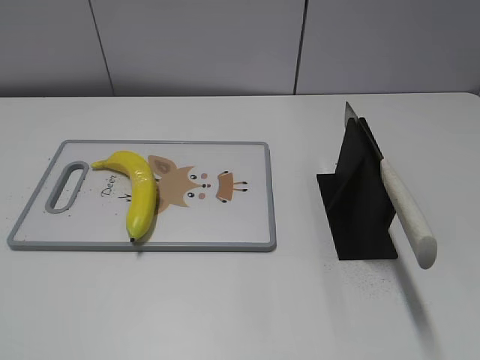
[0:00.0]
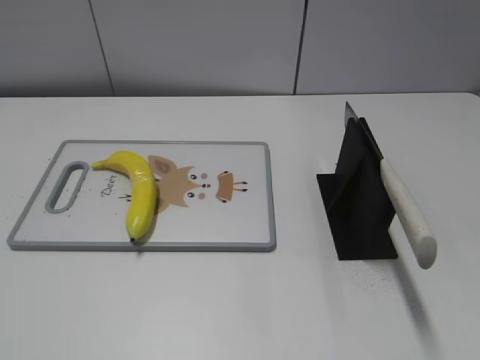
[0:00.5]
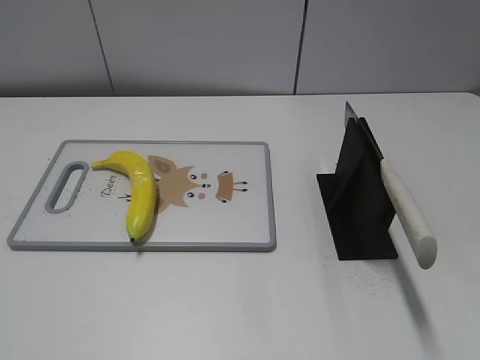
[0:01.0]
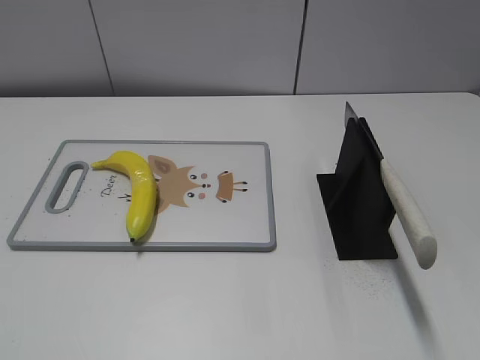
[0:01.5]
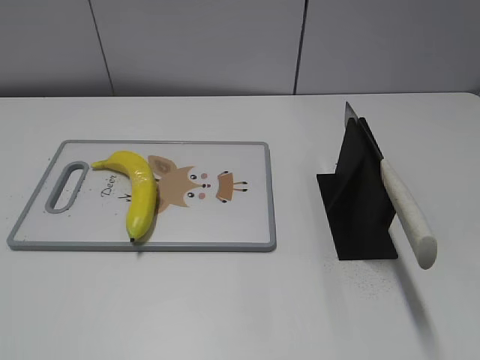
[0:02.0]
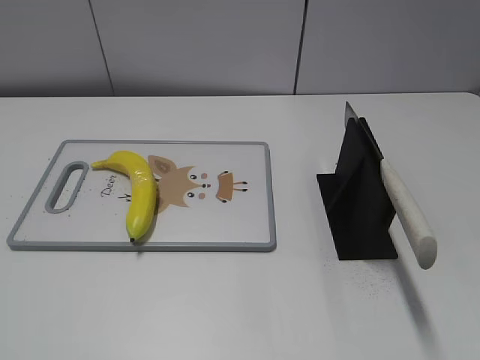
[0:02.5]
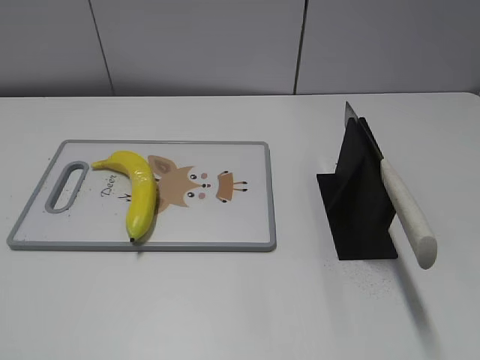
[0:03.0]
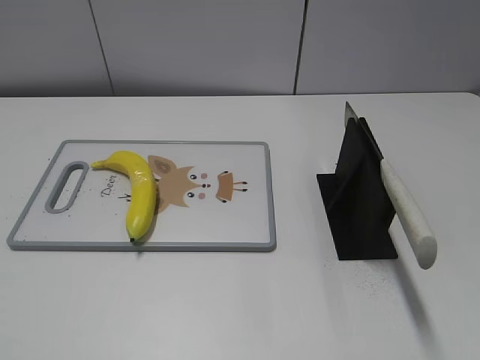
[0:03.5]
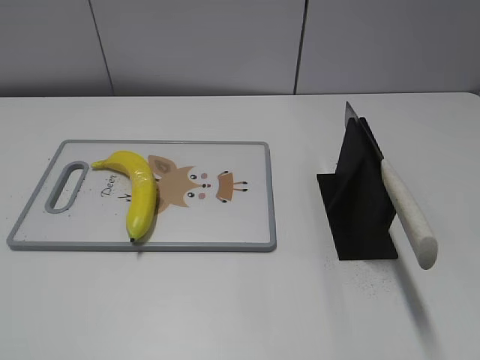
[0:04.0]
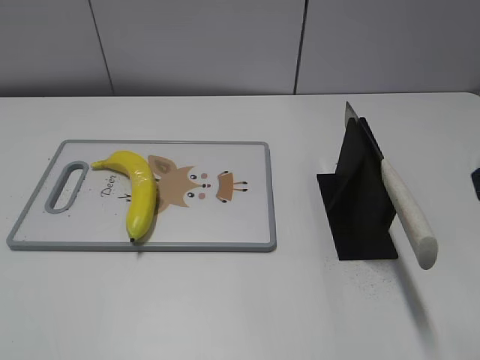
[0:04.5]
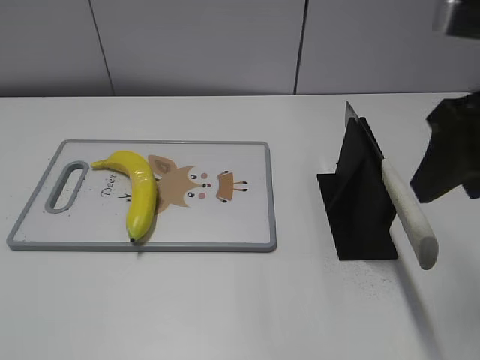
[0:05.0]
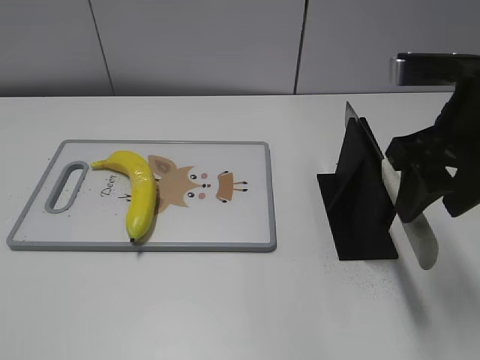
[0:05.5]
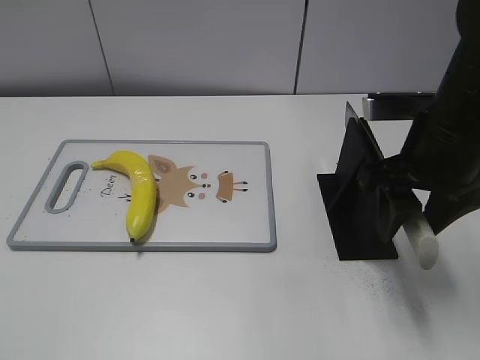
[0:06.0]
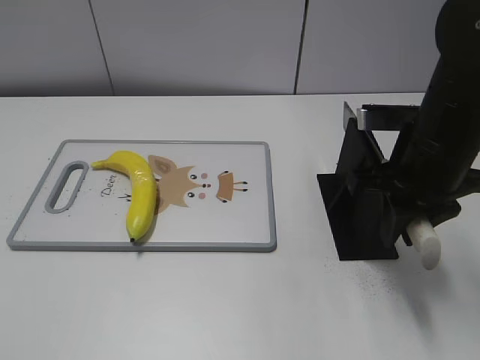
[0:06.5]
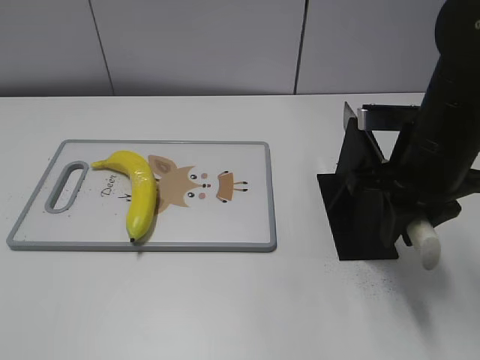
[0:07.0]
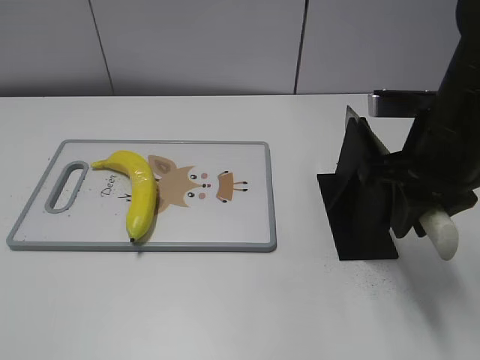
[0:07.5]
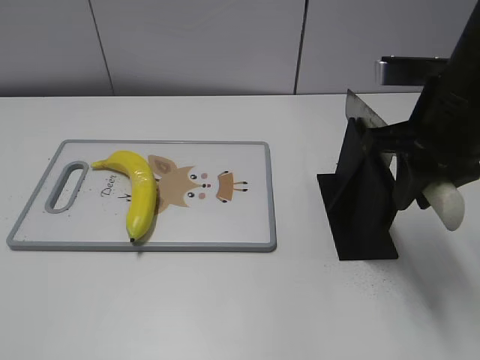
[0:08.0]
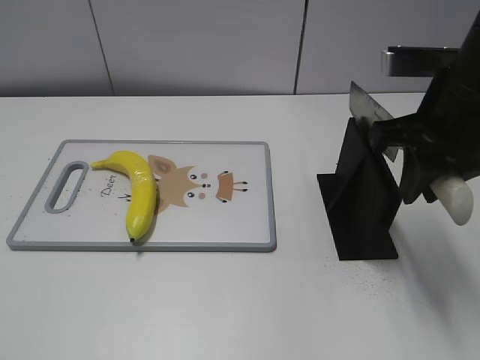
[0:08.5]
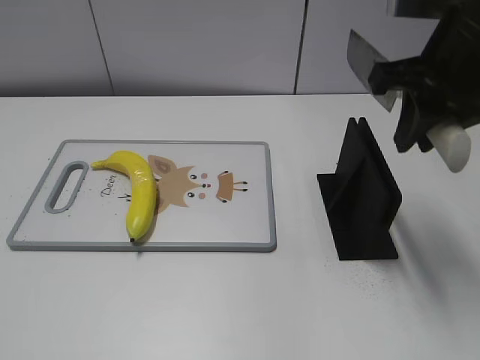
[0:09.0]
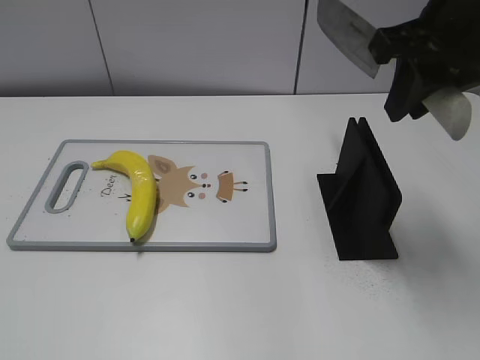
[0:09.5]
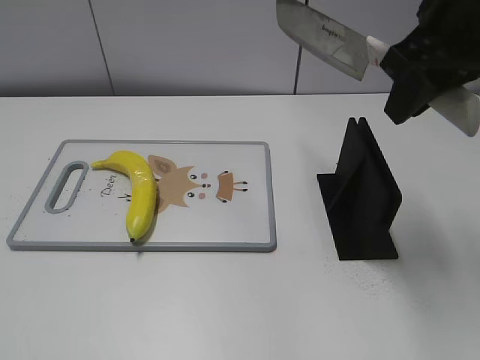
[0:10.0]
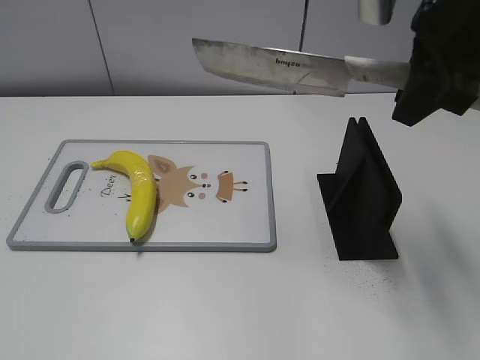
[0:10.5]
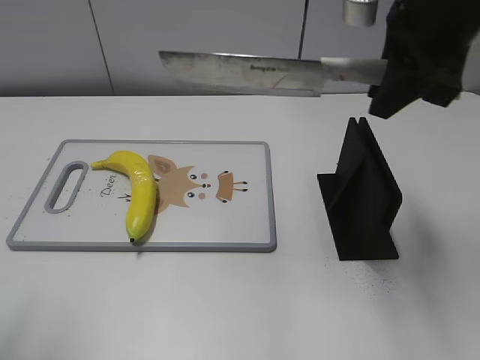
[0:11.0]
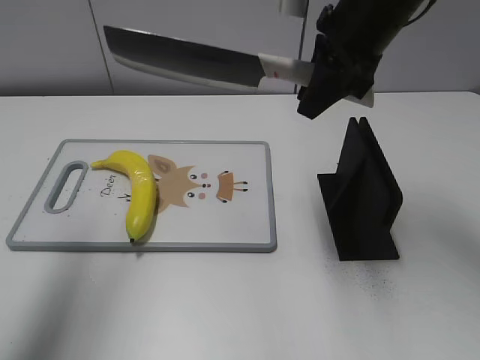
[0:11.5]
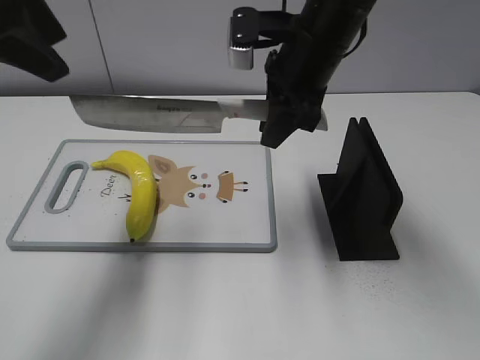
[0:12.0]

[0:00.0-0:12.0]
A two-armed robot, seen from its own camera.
Task of the whole recording: cut plastic banana.
Step, 0:00.0 to 0:08.0: Grab the knife handle with your right hand.
0:04.0 to 0:06.0: The right gripper moves forward, downward and to the left, approximately 25 cm.
0:06.0 to 0:08.0: The right gripper closes.
0:08.0 to 0:10.0: The right gripper goes roughly 10 cm upward.
0:10.0 to 0:12.0: The right gripper shifts about 15 cm to the left, forward and downward. The left gripper is displaced forward by some 30 cm.

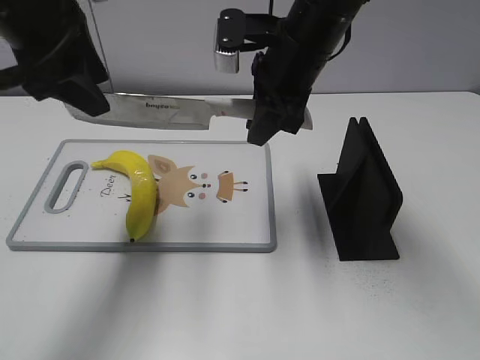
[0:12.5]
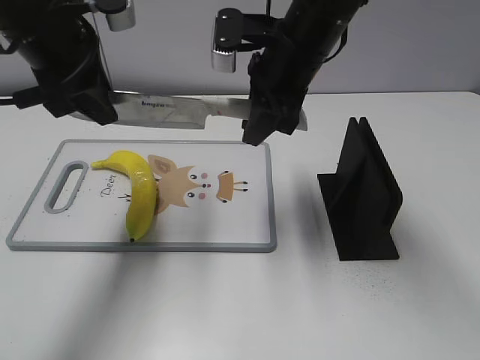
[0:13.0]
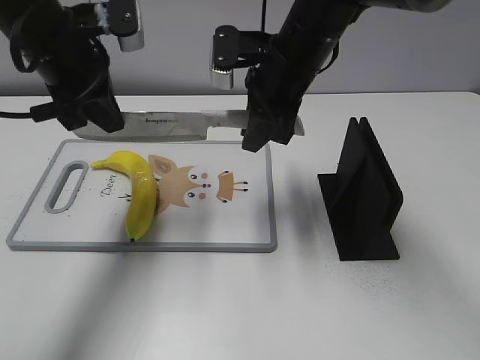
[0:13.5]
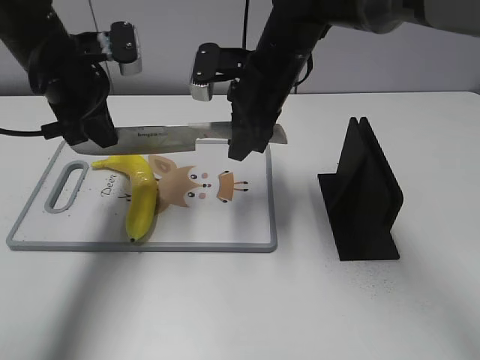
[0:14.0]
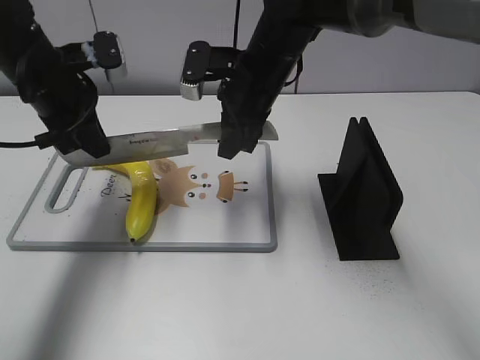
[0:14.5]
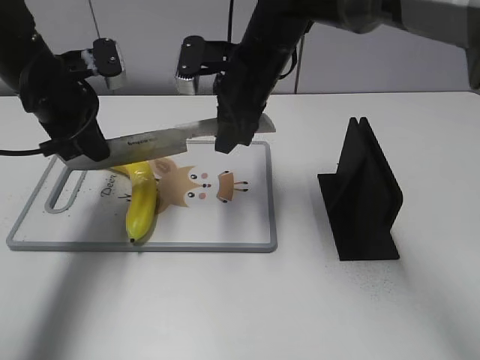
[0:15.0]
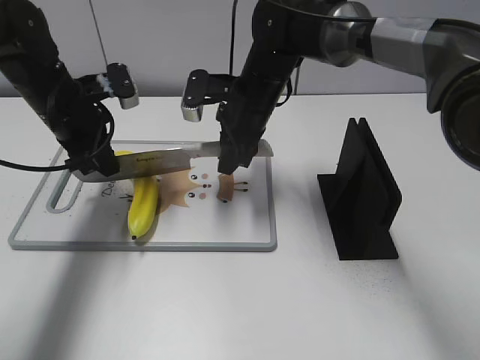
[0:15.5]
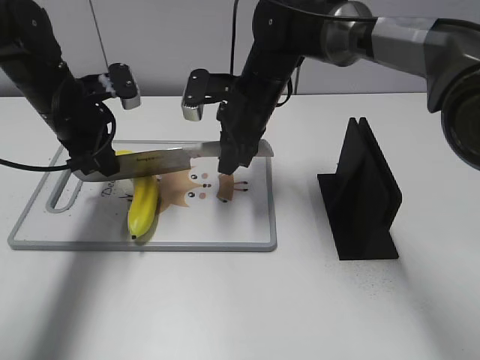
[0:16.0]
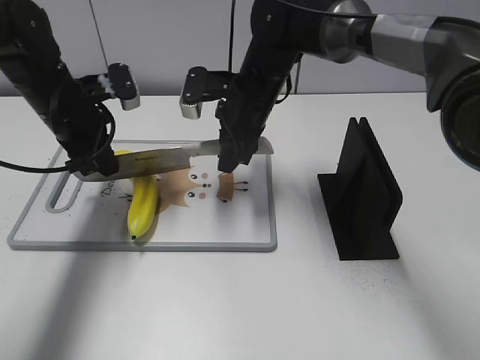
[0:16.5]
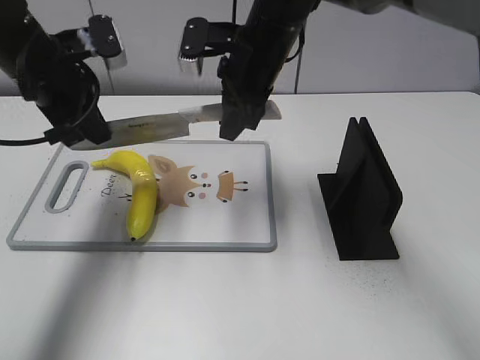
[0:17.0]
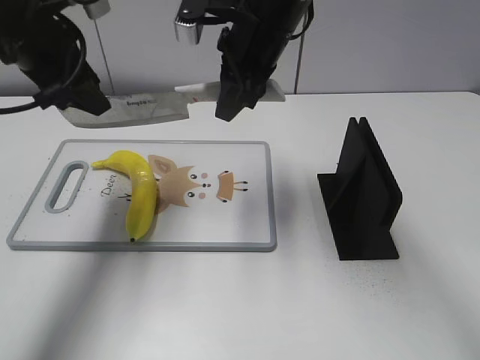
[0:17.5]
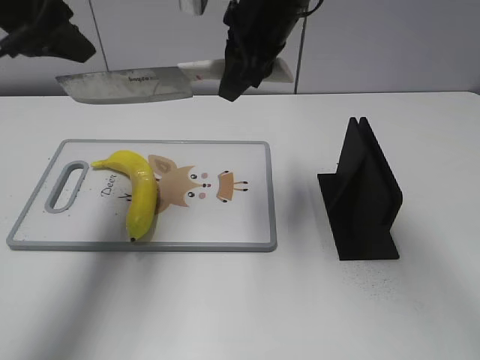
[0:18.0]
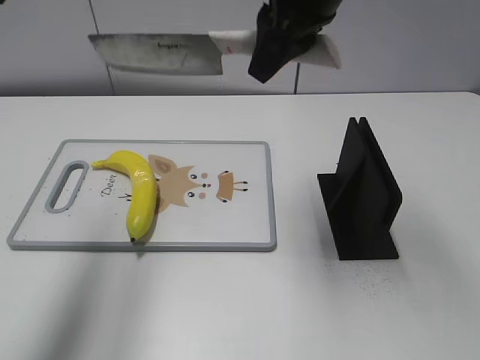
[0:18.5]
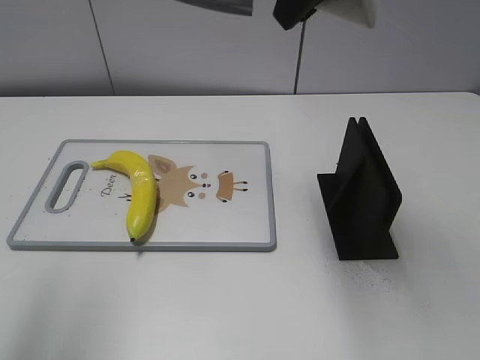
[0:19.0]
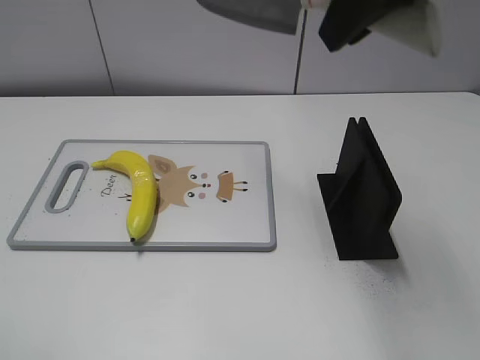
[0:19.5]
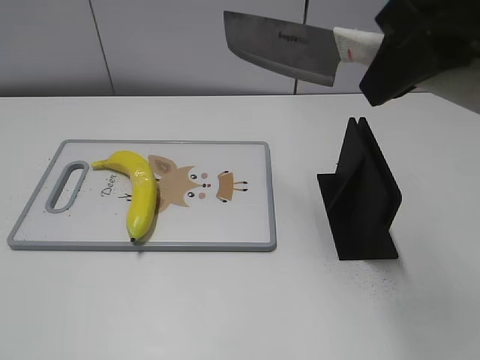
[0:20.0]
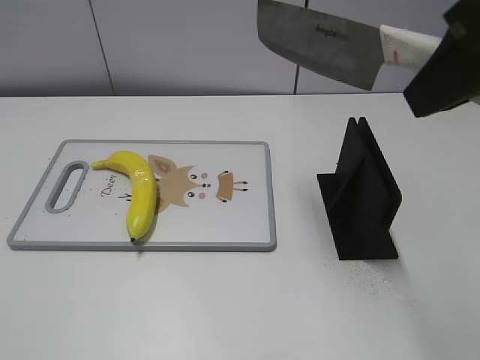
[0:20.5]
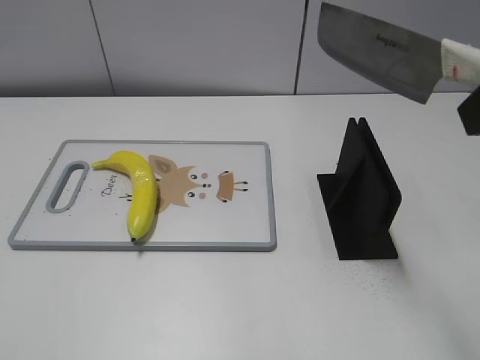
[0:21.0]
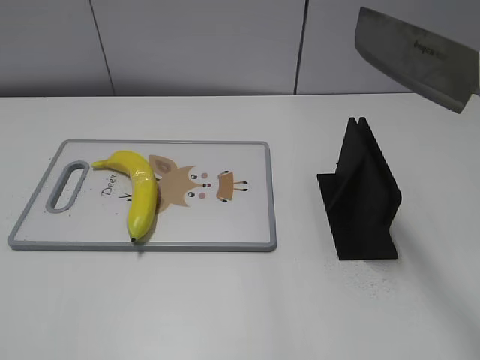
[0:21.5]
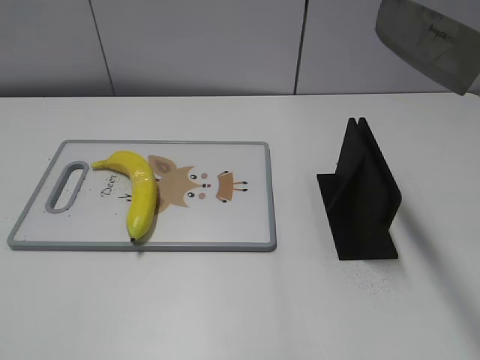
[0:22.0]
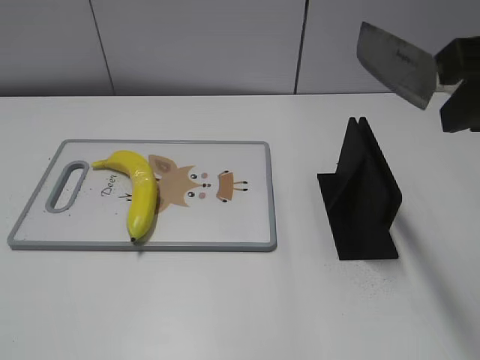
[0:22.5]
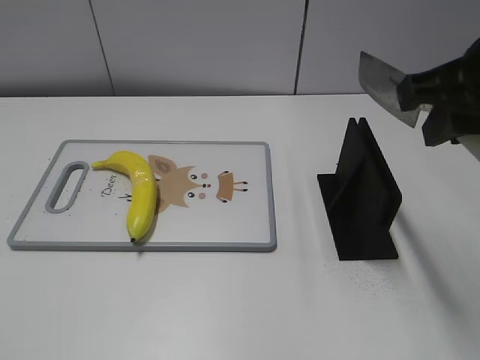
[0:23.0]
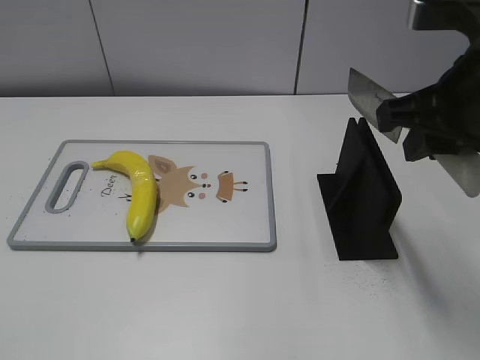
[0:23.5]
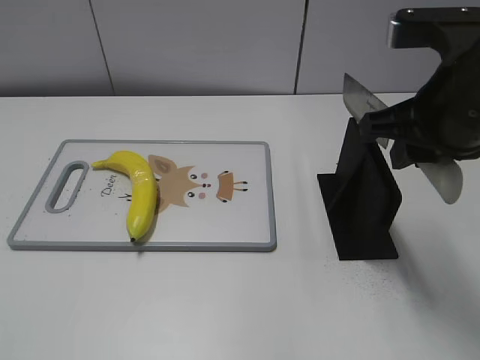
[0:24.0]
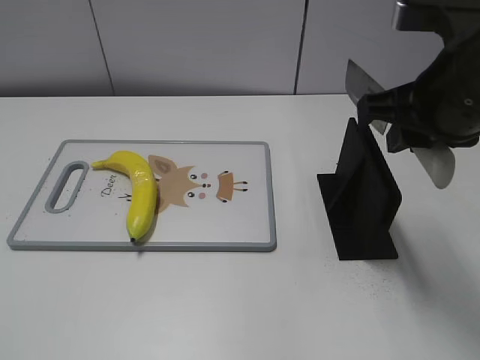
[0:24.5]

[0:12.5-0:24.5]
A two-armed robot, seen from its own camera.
Task of the whole recording: cut plastic banana.
Step, 0:12.5 to 0:17.0: Lift the knife with your right hand.
Step, 0:17.5 to 0:19.5: Cut the banana with your right hand.
Step, 0:20.0 to 0:21.0: Lift the knife with your right hand.
0:12.5 to 0:14.5: The right gripper moves some 5 cm, while the left gripper heads downward and forward, covering roughly 10 cm, and closes up.
0:14.5 to 0:16.5: The left gripper ends up about 5 cm from where it was.
0:16.5 to 0:18.5: The grippers both shift upward and backward by approximately 25 cm. The left gripper opens up.
0:18.5 to 0:20.5: The right gripper travels backward and to the right by some 20 cm. The left gripper goes about 25 cm backward and downward.
0:22.5 to 0:24.5: The right gripper travels downward and forward by about 10 cm.

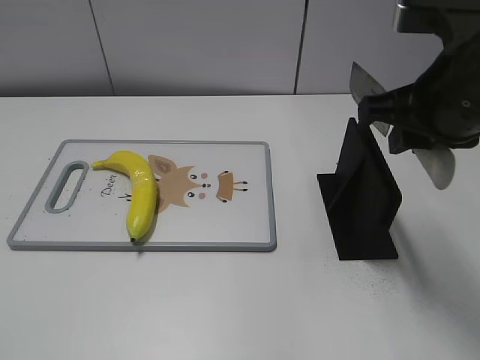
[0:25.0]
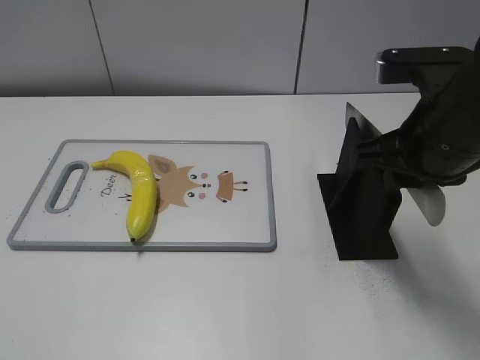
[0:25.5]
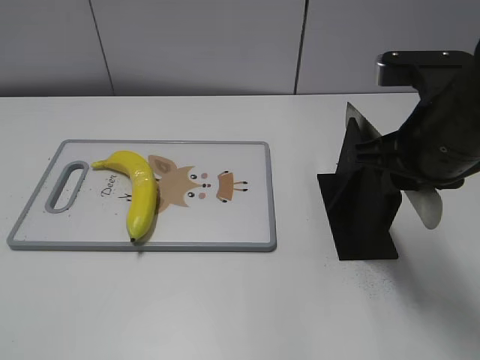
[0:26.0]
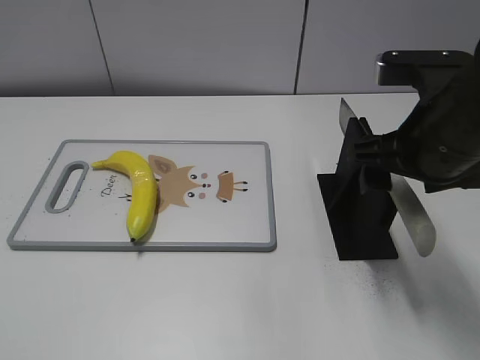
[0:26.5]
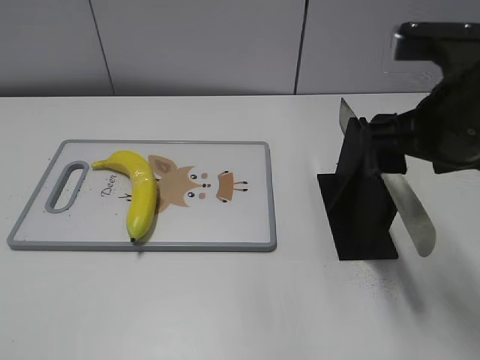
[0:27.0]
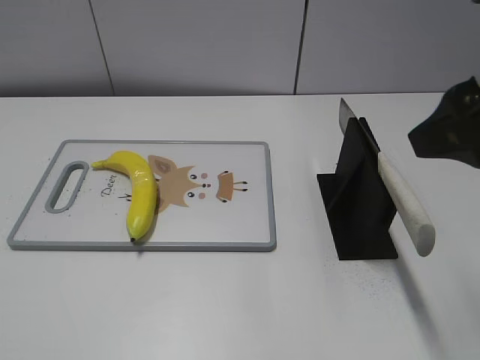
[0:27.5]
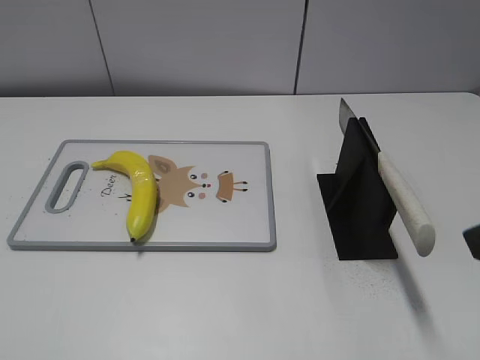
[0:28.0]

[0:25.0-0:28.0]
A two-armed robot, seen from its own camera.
Task of the whole recording: cut plastic banana.
0:25.0 to 0:26.5: The right gripper opens its fingers.
0:26.5 to 0:28.0: The right gripper heads backward, upward and to the right, covering about 15 cm.
